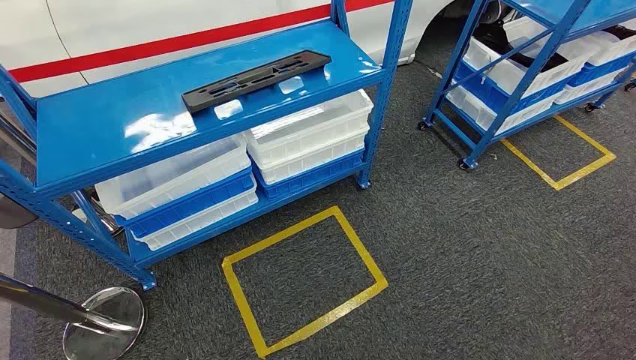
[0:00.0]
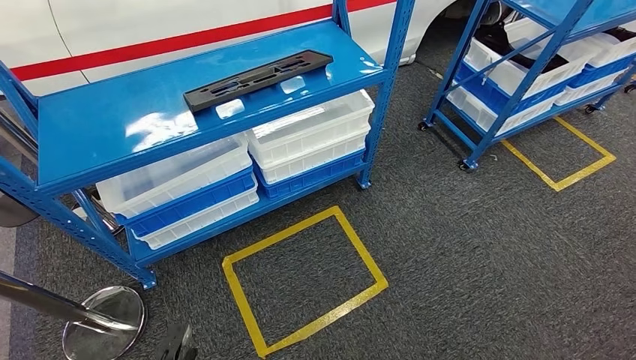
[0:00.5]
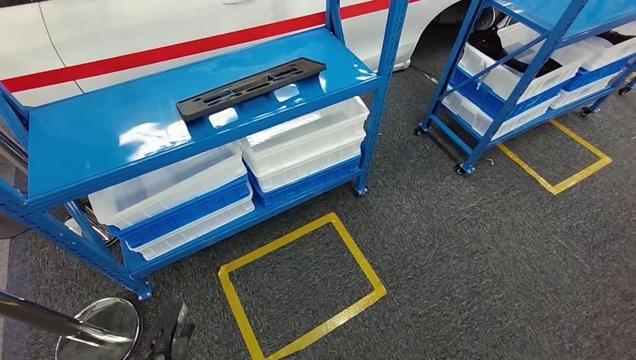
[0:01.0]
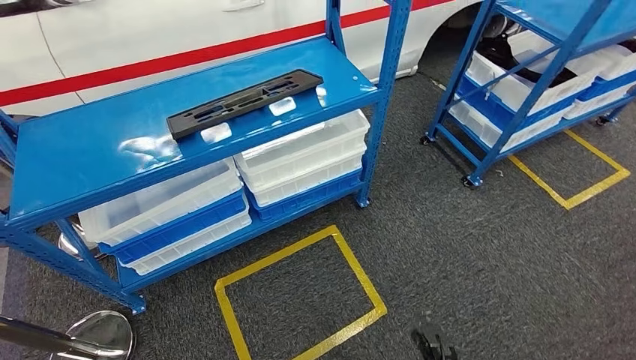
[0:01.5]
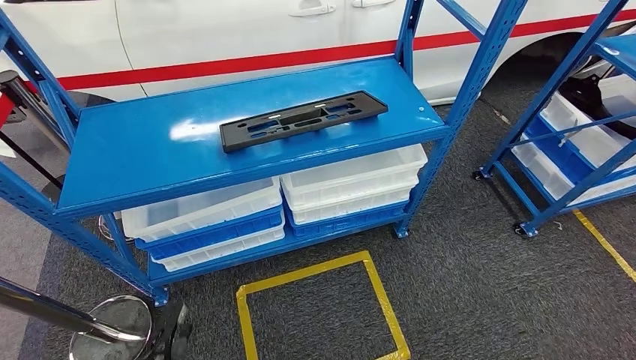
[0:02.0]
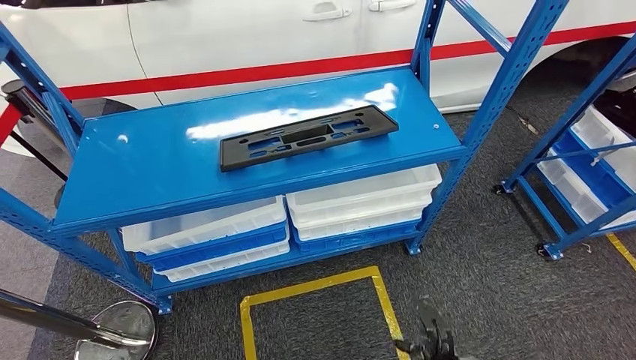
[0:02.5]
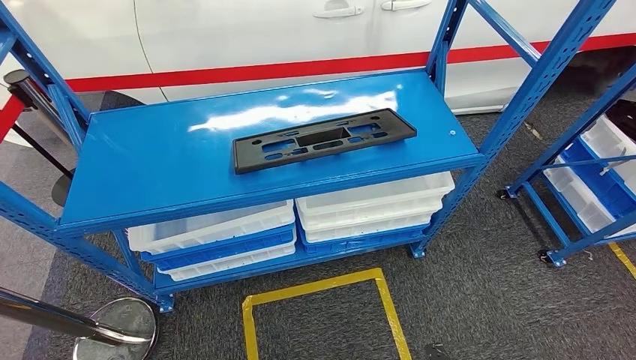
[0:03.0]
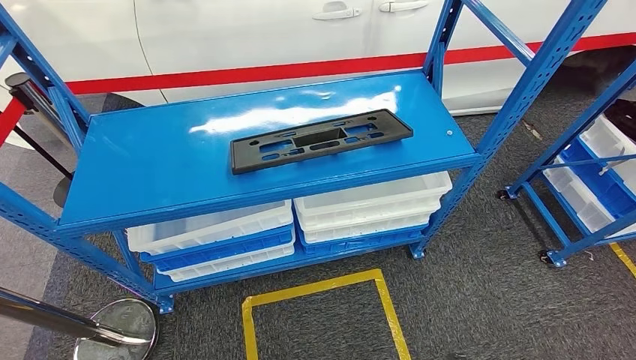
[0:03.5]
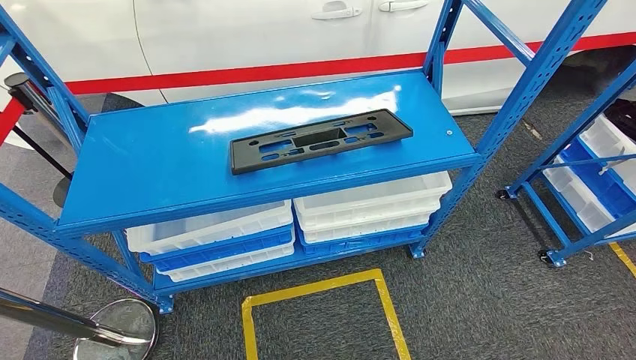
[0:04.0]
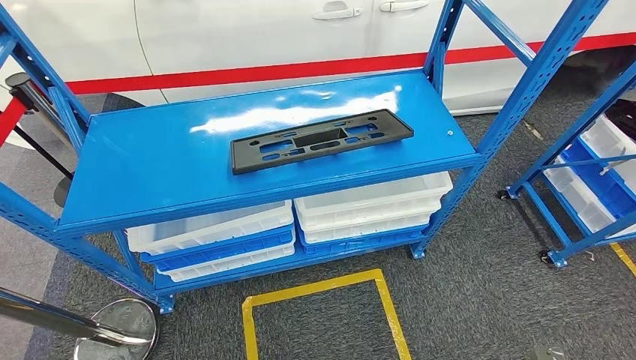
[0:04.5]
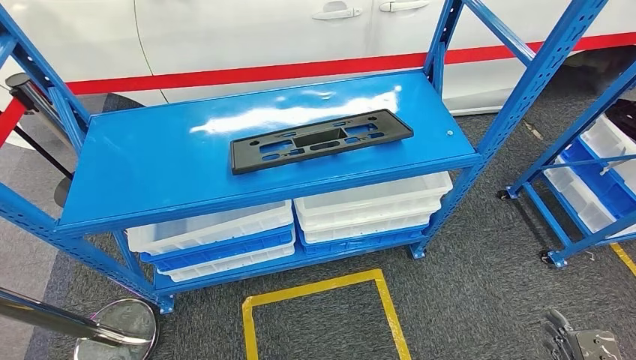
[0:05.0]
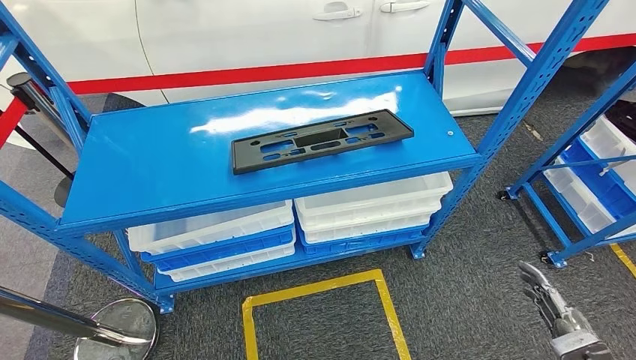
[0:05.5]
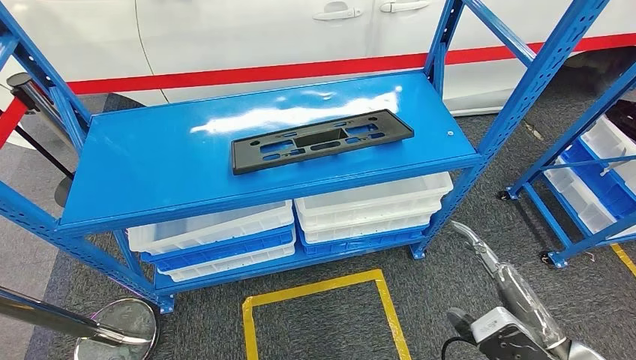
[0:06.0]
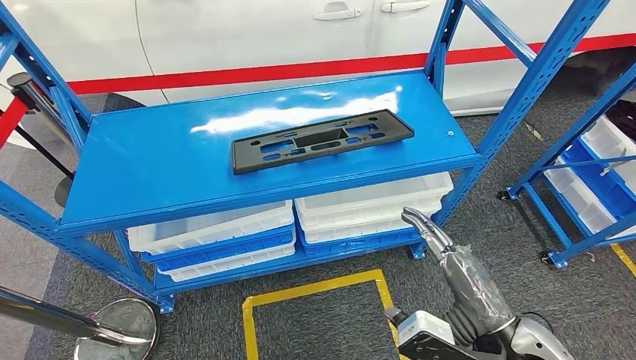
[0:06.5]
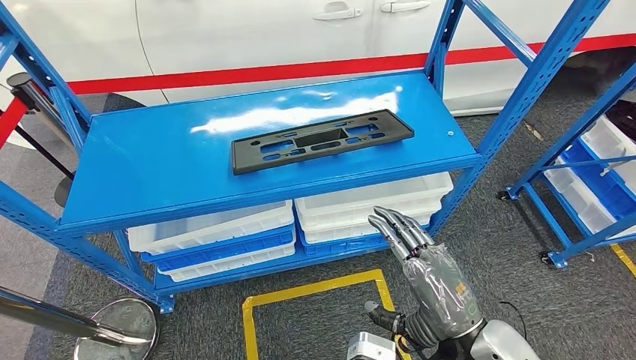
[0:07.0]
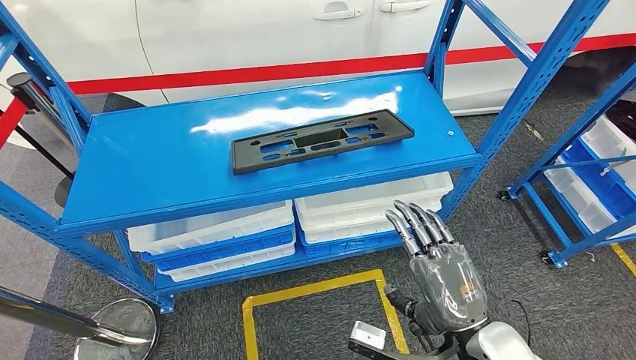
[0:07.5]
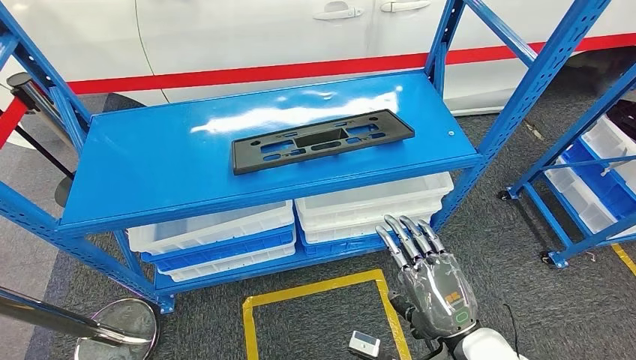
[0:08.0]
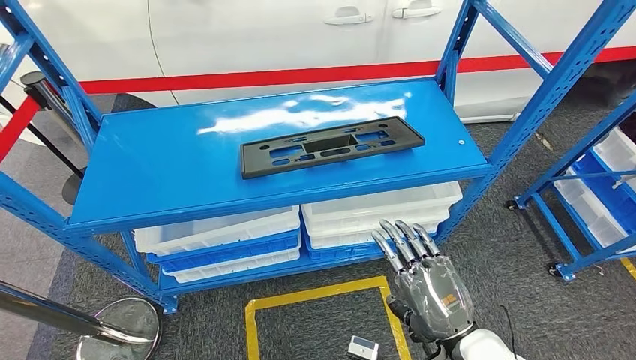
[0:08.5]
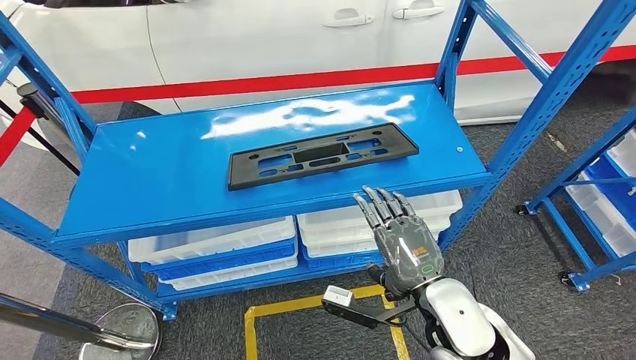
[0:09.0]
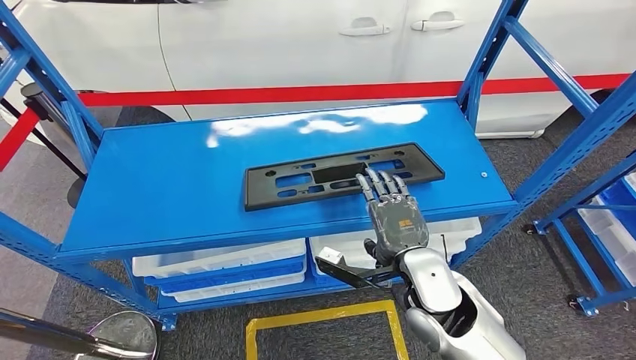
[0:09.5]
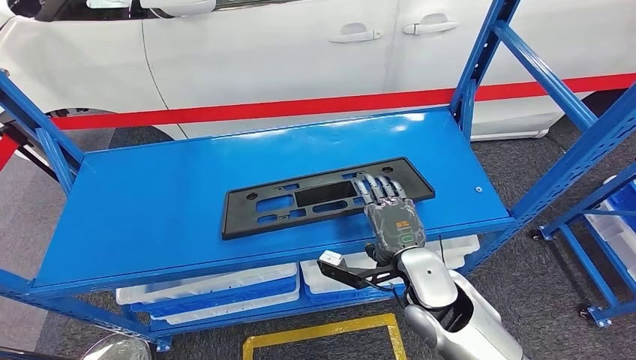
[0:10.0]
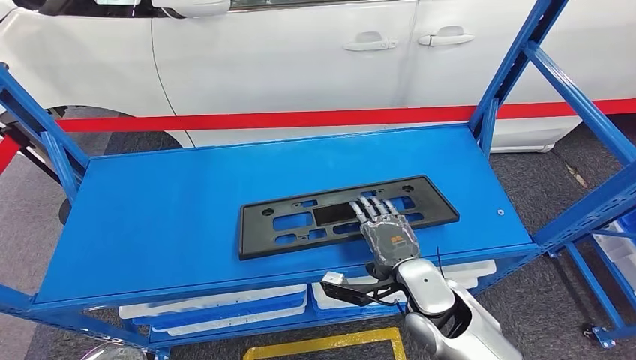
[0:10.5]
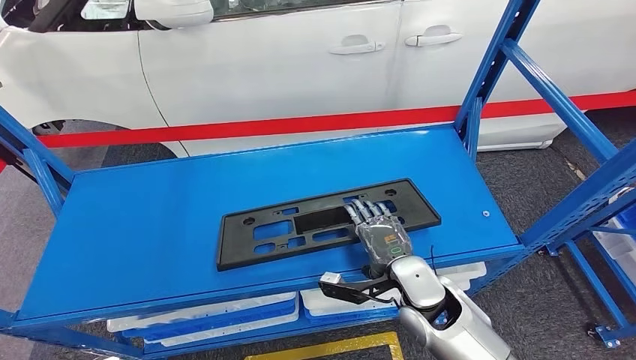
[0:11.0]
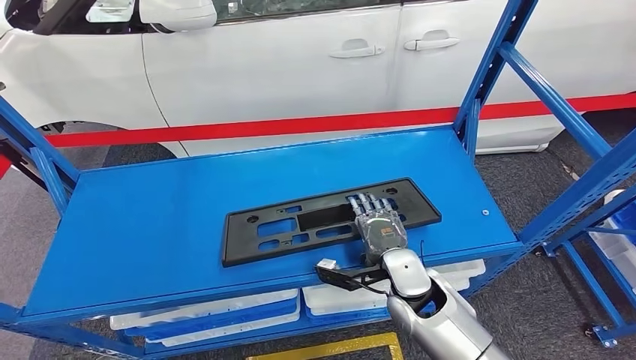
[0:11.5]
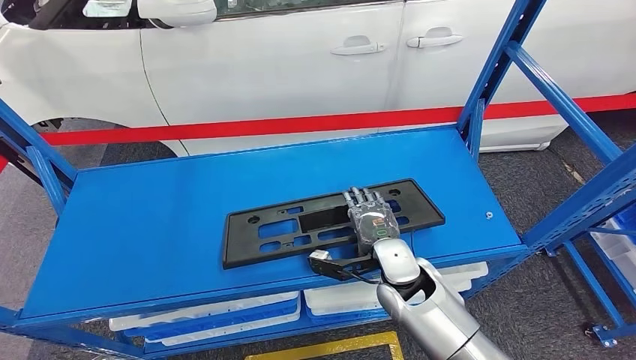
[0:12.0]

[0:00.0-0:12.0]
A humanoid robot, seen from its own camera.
0:04.0 to 0:06.0: The left hand goes approximately 10 cm backward. The right hand moves upward and forward, roughly 30 cm.
0:06.0 to 0:08.0: The right hand goes some 10 cm to the left.

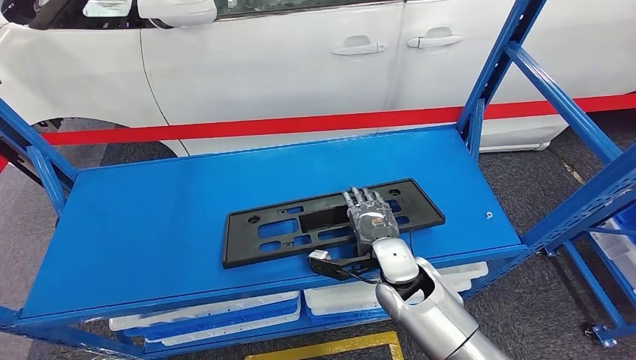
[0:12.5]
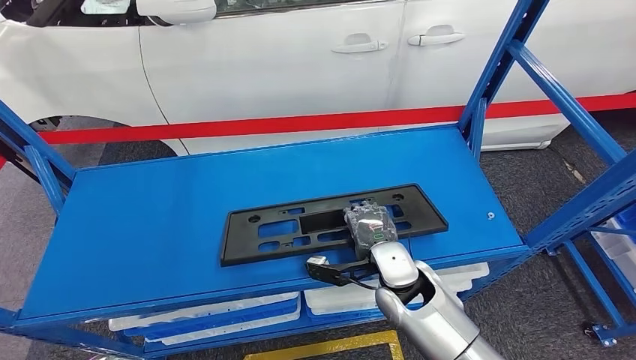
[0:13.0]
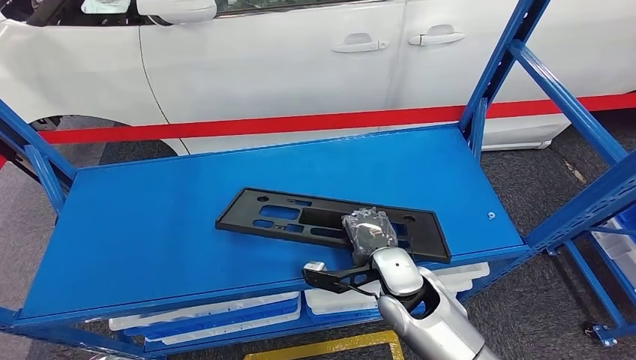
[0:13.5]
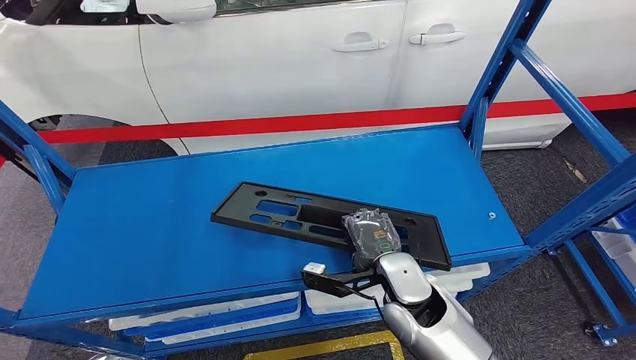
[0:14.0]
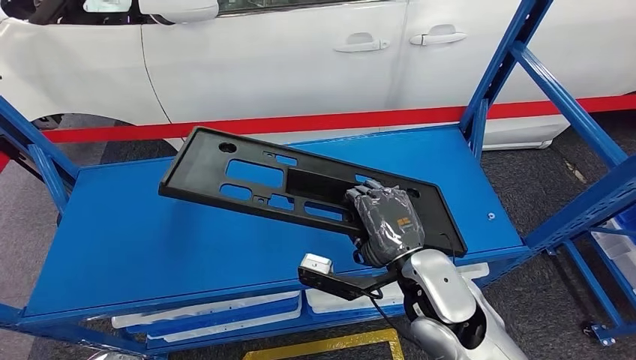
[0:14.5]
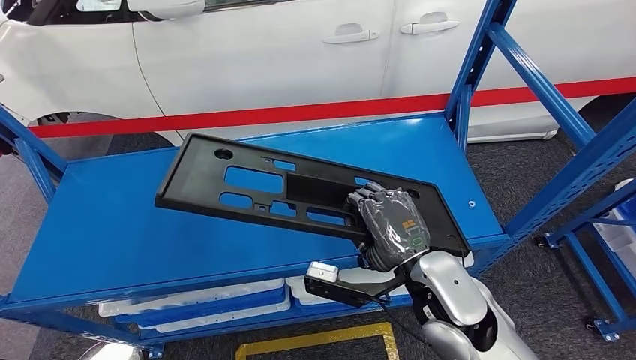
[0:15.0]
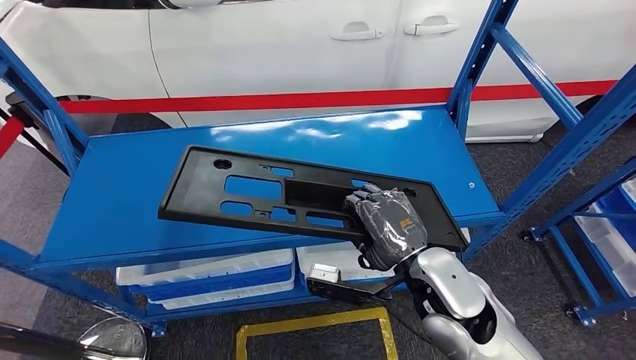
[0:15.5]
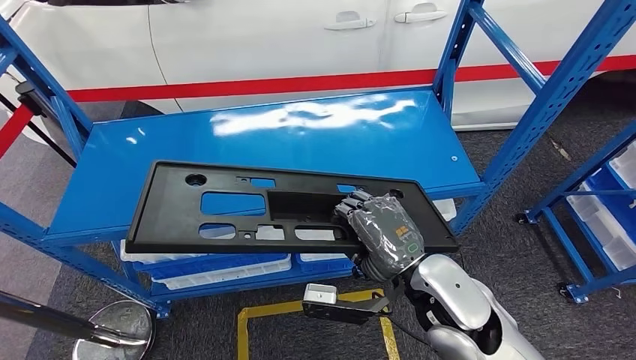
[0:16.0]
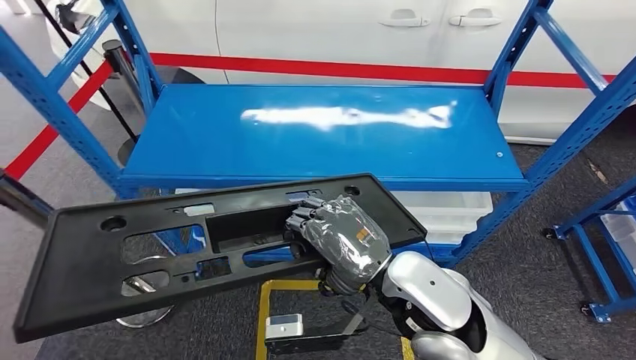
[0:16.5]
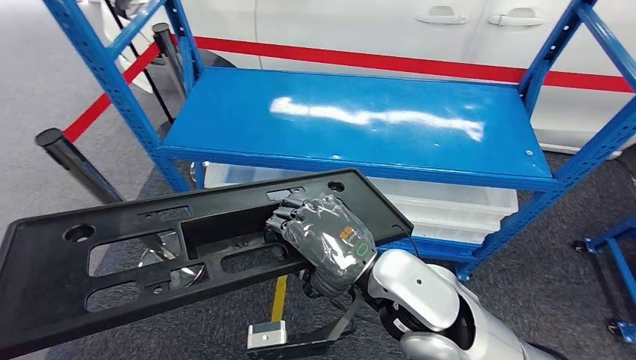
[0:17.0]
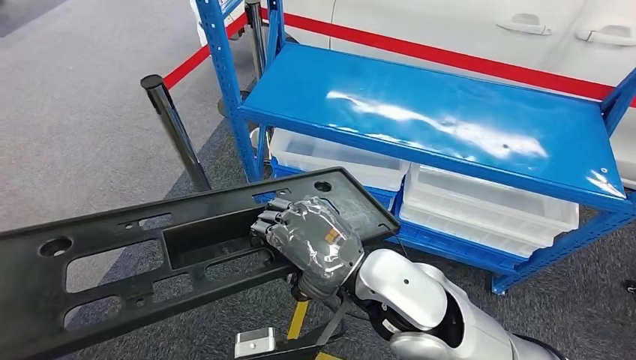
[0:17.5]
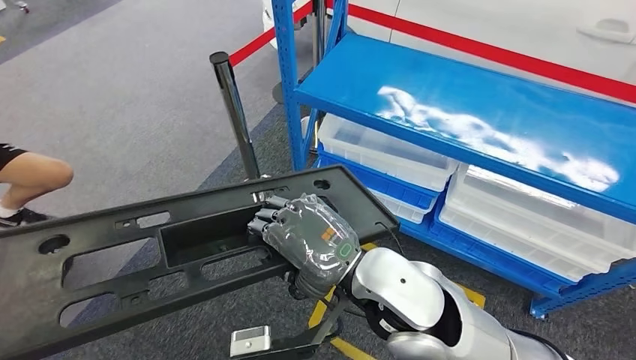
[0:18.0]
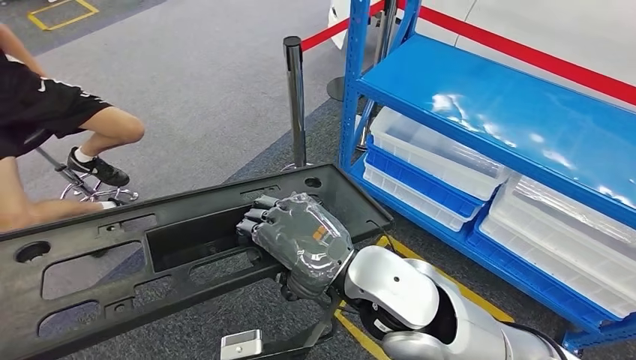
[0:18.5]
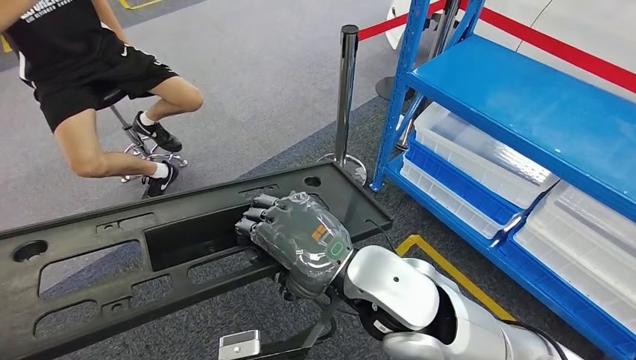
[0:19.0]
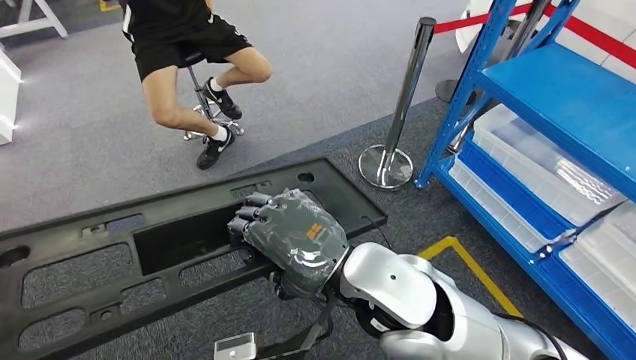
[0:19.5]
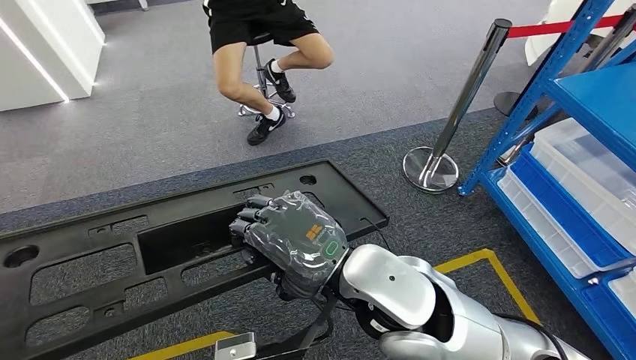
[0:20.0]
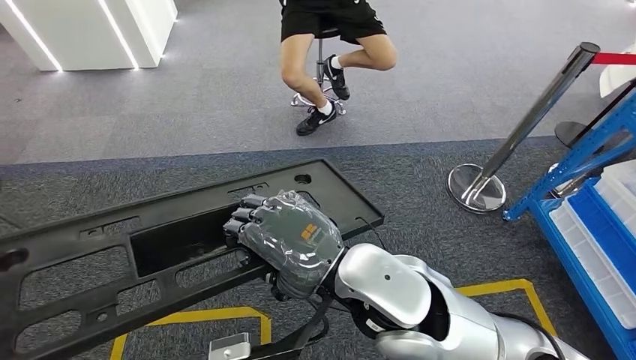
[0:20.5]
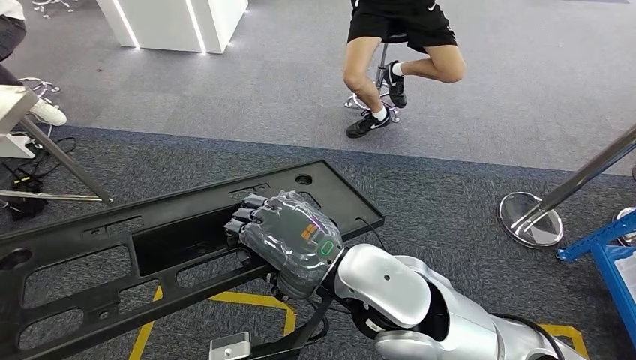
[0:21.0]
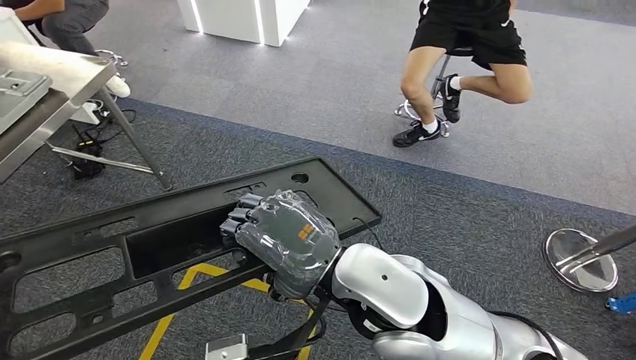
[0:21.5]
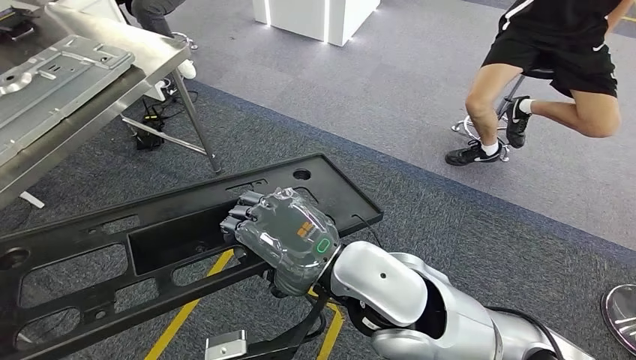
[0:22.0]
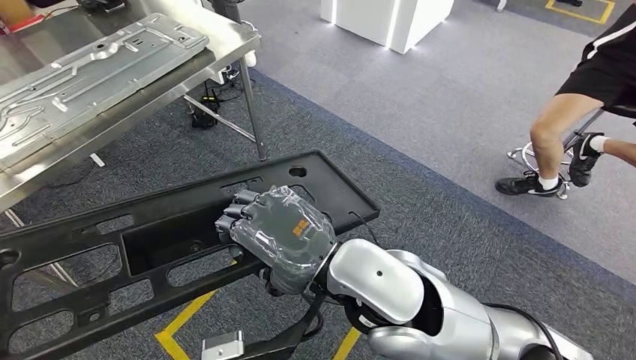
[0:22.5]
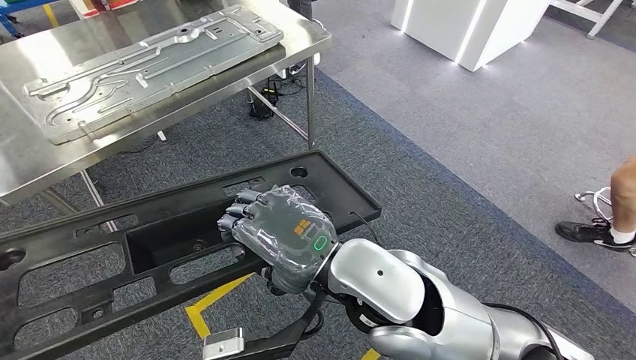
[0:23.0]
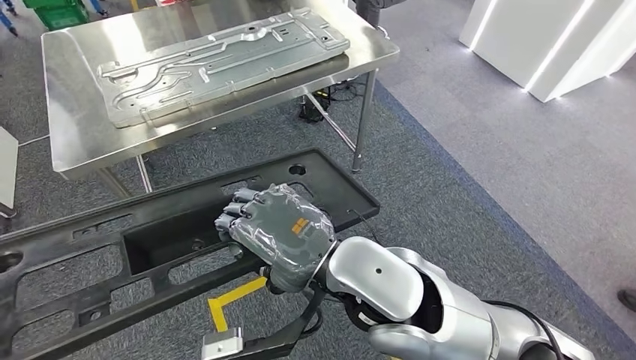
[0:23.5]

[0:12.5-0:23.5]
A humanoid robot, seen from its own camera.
Step, 0:12.5 to 0:18.5: Pick up the large material from the shelf.
